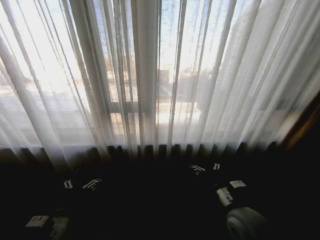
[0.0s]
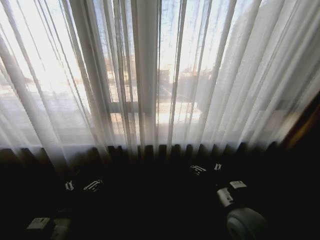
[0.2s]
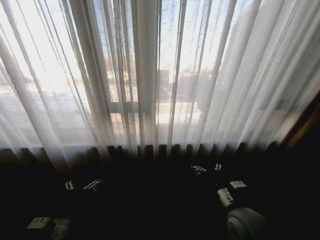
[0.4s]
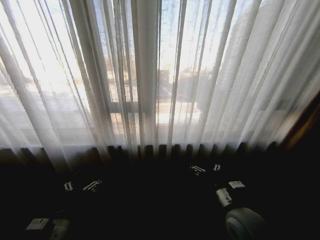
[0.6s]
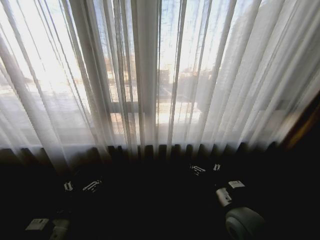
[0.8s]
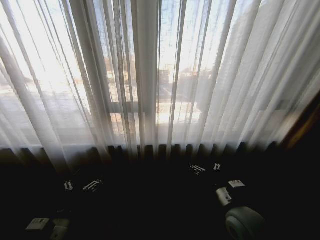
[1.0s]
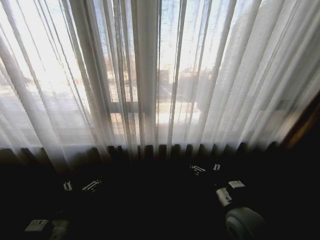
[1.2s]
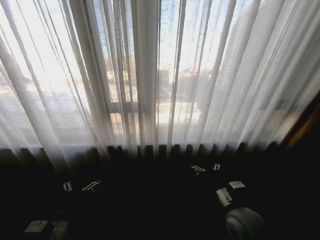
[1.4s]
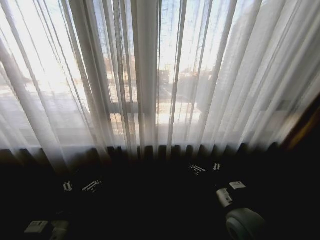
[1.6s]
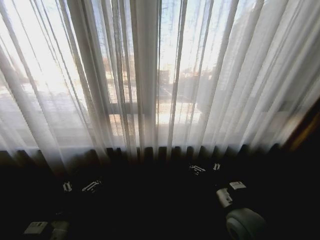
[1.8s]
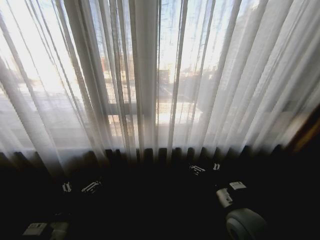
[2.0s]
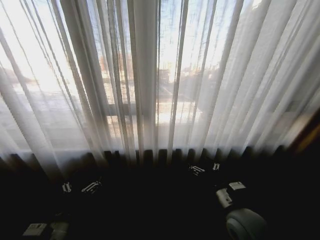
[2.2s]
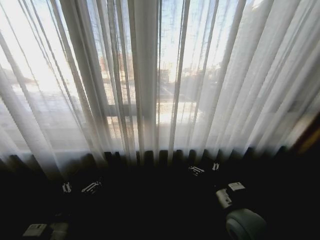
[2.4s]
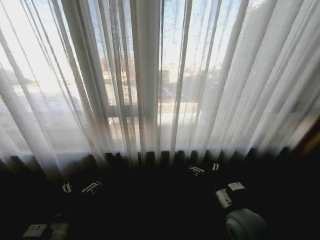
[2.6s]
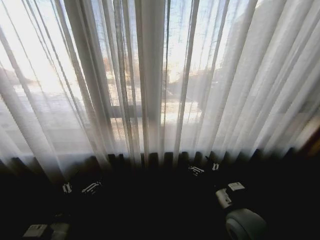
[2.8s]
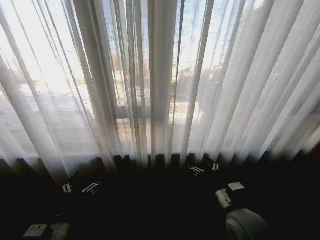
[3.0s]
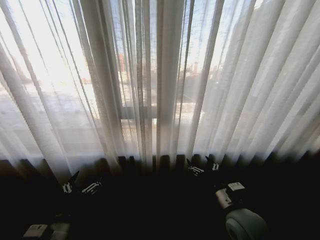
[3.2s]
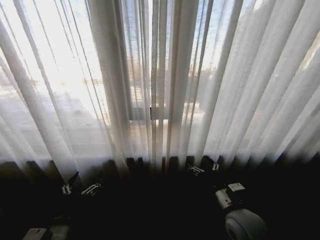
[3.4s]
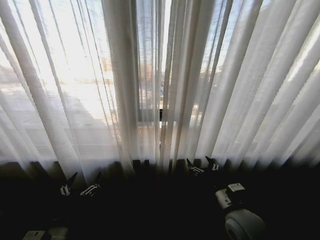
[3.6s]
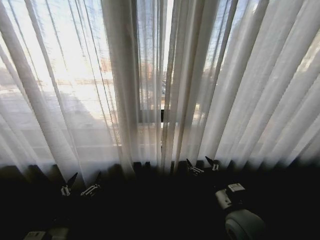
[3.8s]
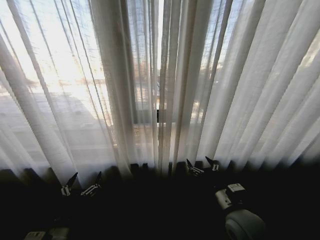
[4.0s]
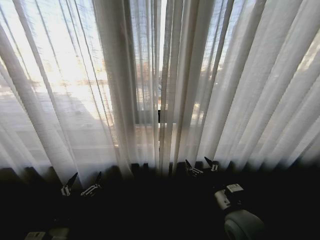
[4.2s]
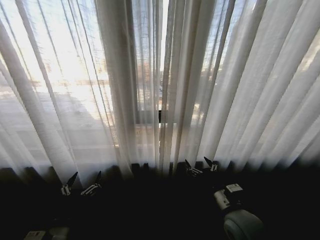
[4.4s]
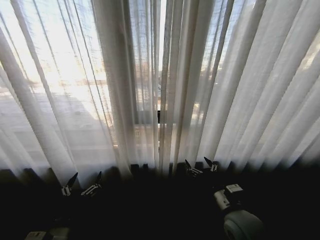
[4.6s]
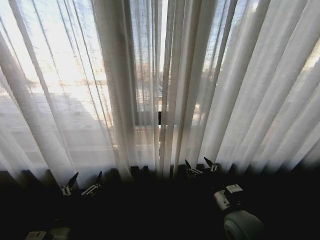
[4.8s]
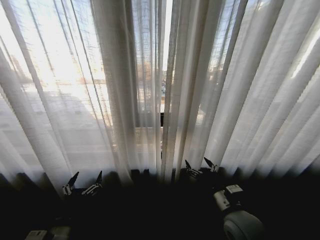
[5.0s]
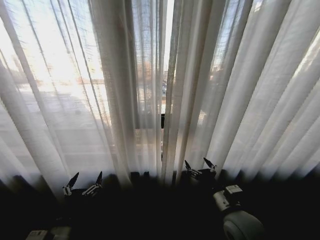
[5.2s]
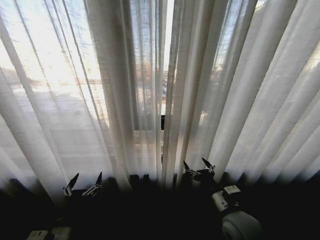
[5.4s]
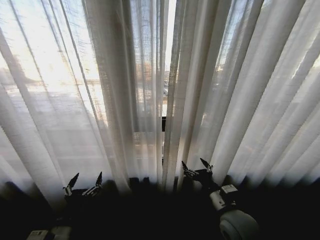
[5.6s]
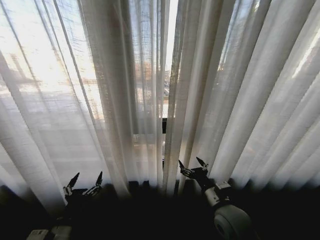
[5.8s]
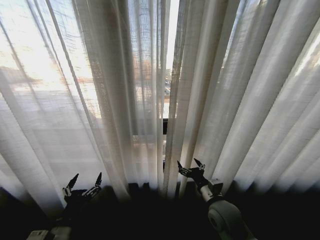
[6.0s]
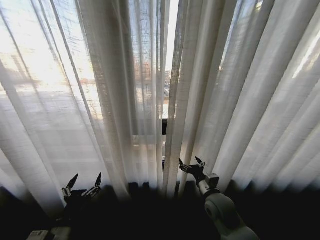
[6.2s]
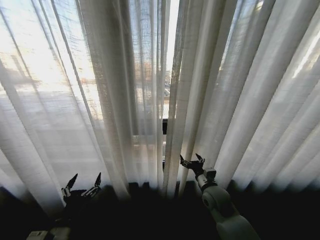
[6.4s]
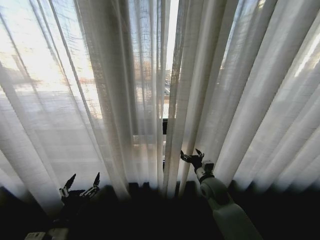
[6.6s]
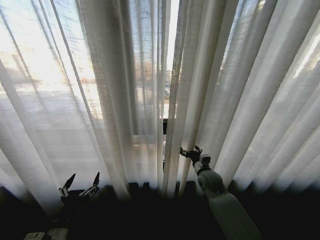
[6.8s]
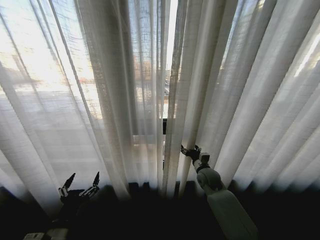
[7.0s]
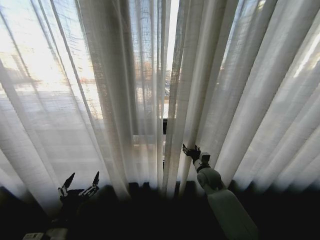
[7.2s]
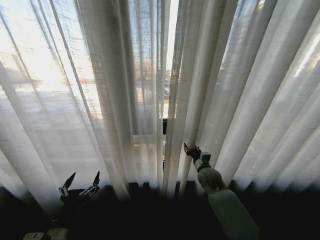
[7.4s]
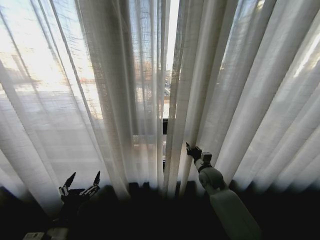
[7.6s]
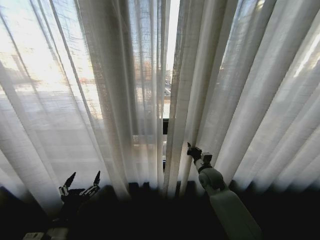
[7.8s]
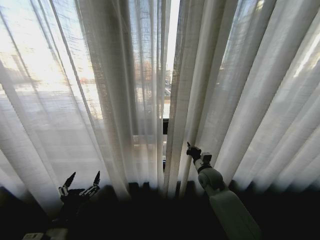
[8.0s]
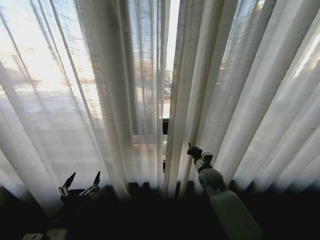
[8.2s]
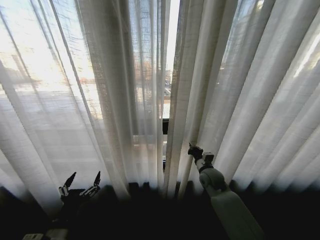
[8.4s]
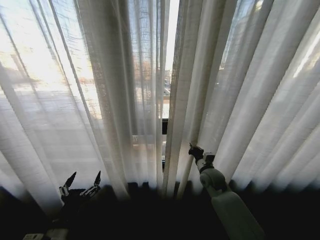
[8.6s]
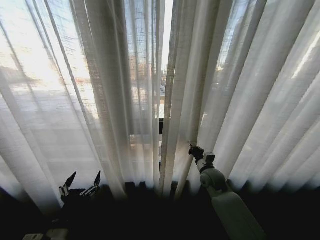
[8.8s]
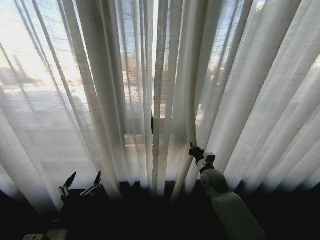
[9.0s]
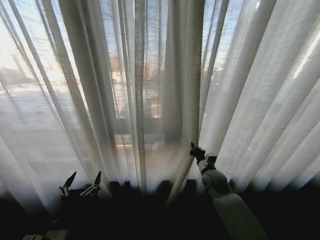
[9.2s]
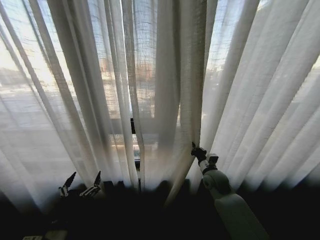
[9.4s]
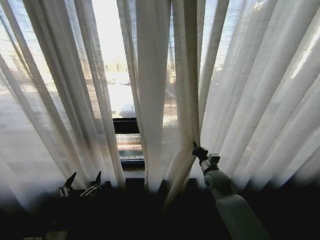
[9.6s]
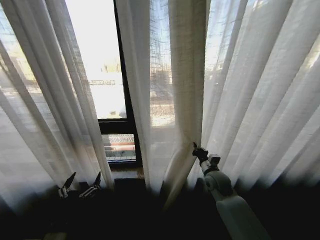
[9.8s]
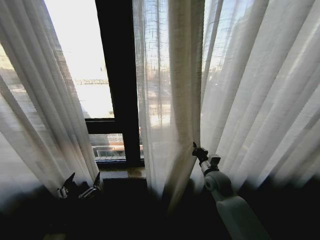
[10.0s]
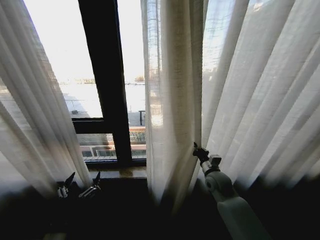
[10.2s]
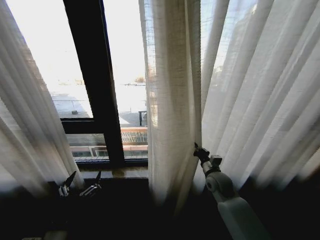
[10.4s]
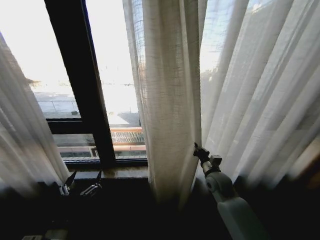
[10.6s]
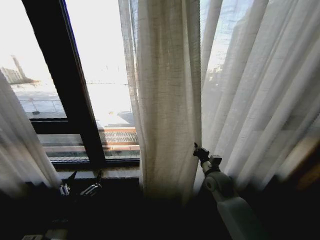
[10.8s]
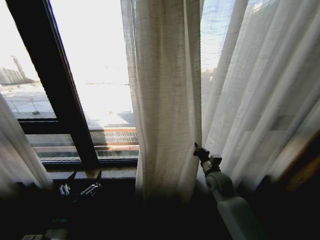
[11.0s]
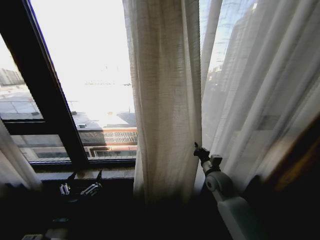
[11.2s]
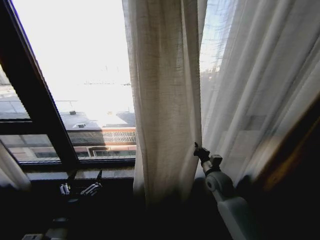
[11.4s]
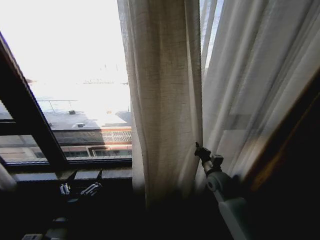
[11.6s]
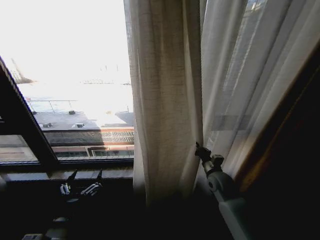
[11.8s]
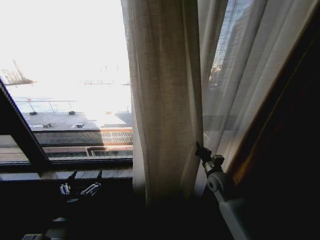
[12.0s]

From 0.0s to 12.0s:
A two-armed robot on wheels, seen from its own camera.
Task of the whole recording: Open the curtains by pulling them apart, changing their state from closed to fully open.
From 4.4s to 6.0s: The right gripper changes place by about 5 cm.
From 6.0s to 7.6s: The right gripper travels forward by some 15 cm, and closes its fingers.

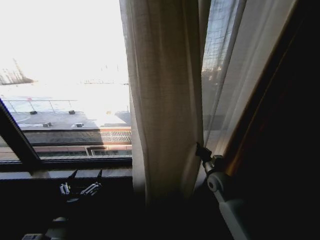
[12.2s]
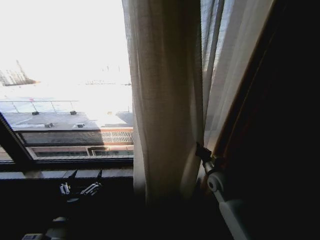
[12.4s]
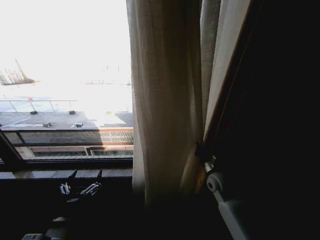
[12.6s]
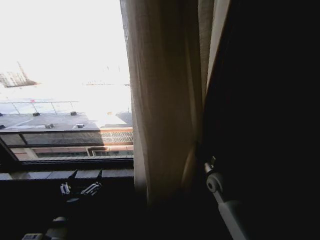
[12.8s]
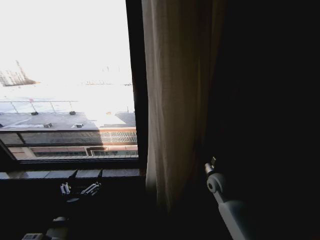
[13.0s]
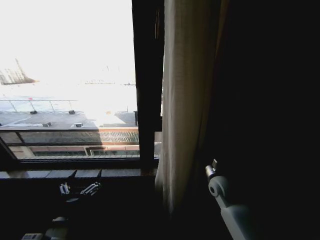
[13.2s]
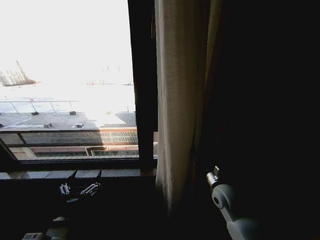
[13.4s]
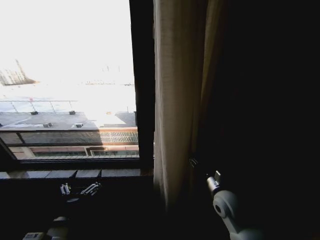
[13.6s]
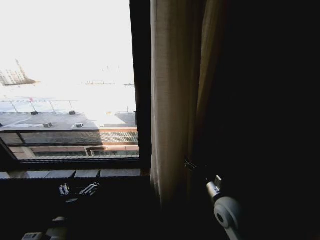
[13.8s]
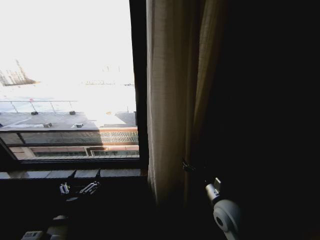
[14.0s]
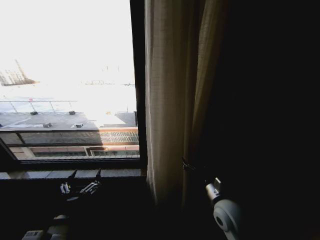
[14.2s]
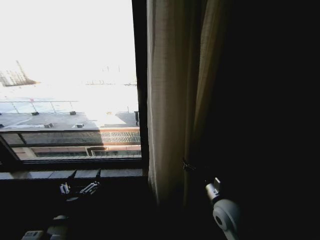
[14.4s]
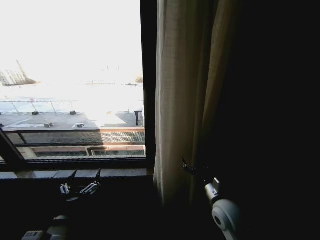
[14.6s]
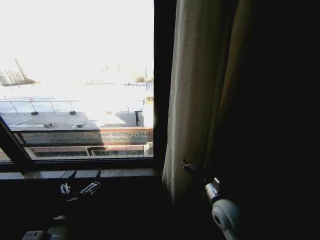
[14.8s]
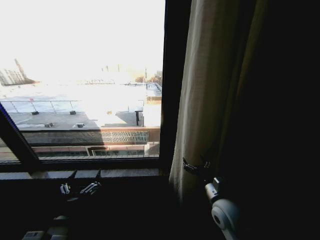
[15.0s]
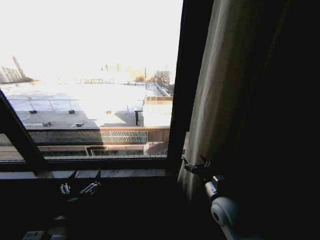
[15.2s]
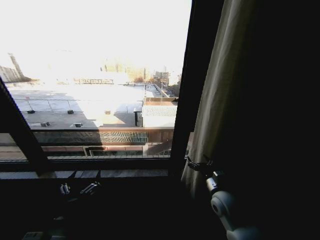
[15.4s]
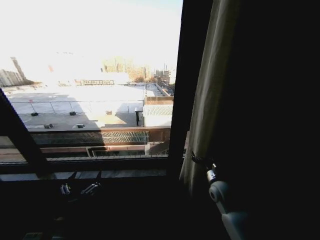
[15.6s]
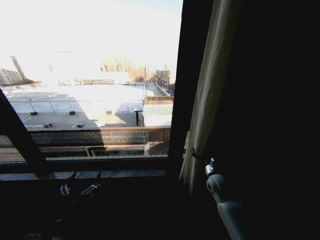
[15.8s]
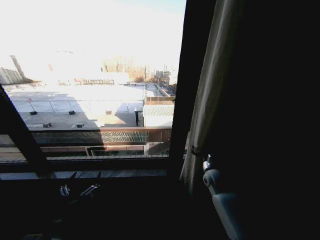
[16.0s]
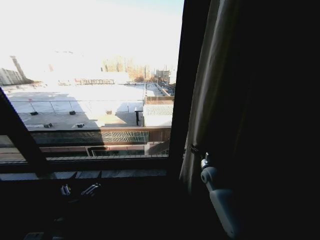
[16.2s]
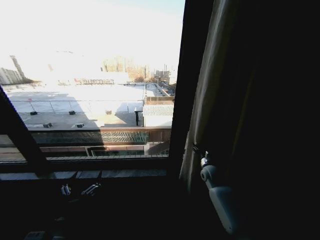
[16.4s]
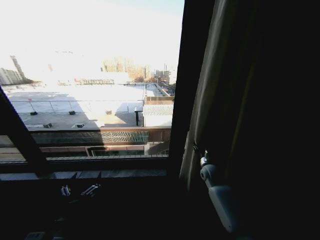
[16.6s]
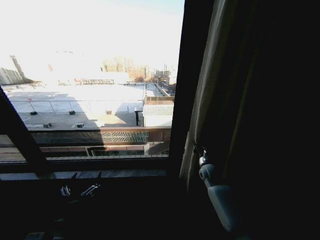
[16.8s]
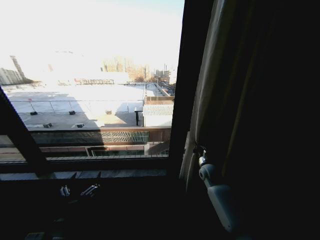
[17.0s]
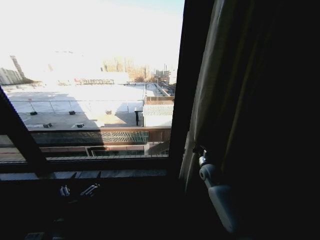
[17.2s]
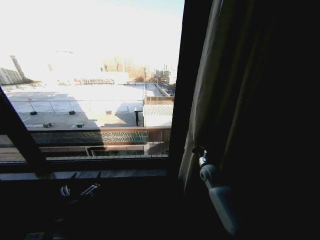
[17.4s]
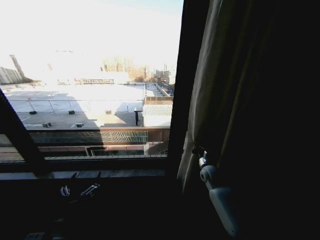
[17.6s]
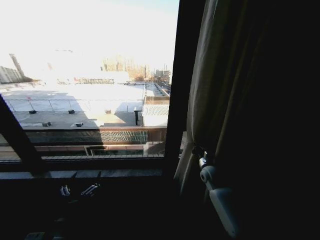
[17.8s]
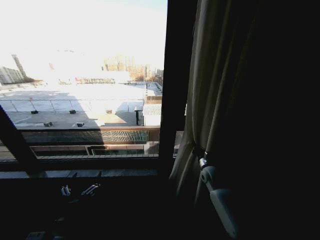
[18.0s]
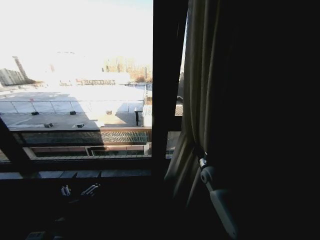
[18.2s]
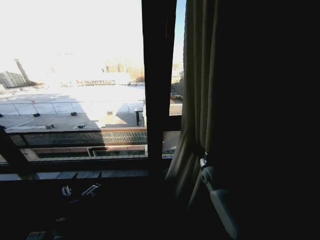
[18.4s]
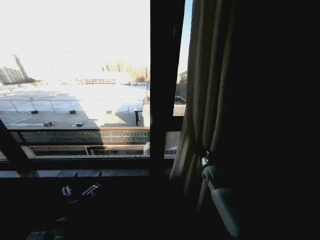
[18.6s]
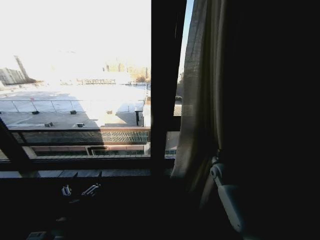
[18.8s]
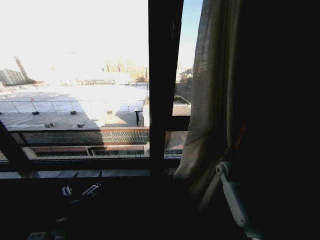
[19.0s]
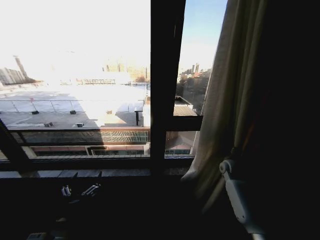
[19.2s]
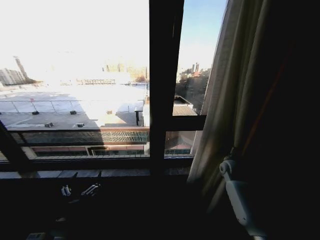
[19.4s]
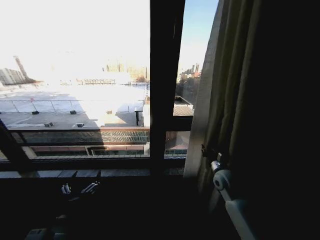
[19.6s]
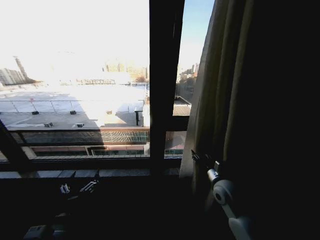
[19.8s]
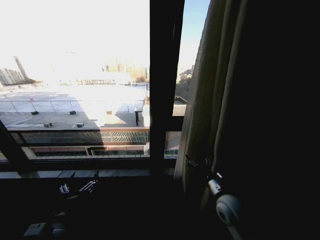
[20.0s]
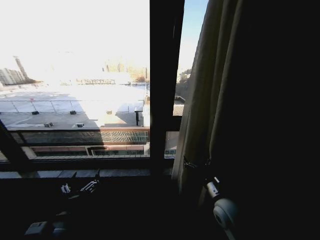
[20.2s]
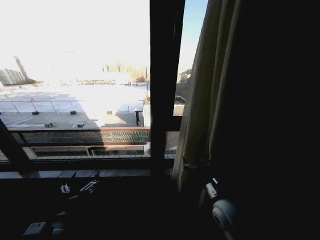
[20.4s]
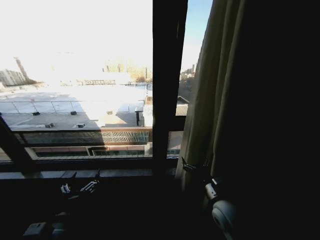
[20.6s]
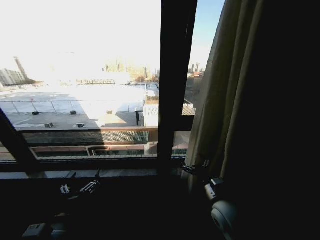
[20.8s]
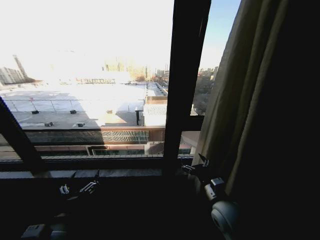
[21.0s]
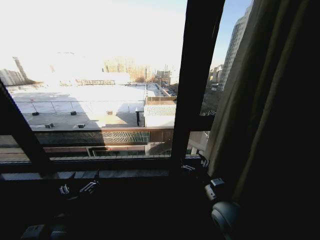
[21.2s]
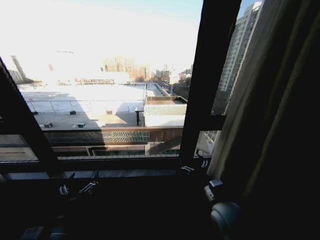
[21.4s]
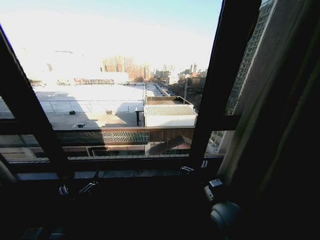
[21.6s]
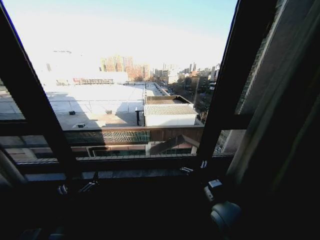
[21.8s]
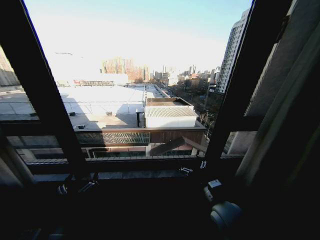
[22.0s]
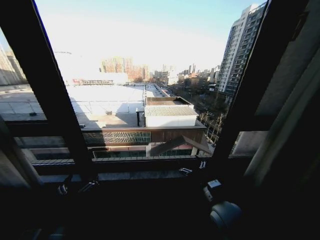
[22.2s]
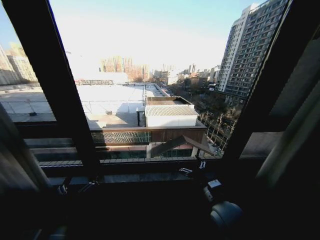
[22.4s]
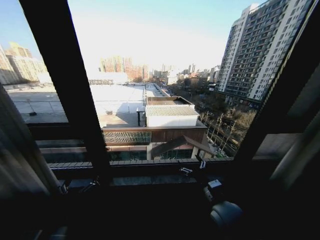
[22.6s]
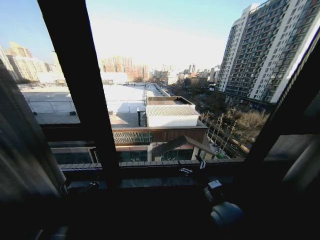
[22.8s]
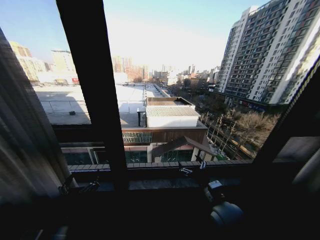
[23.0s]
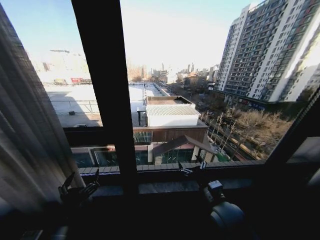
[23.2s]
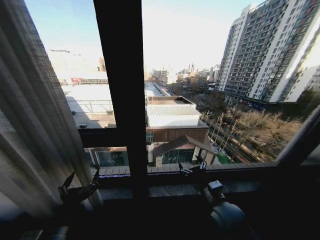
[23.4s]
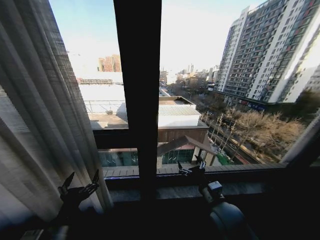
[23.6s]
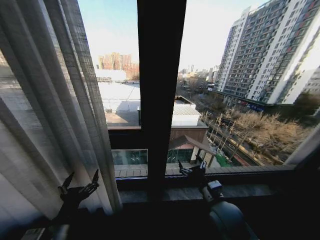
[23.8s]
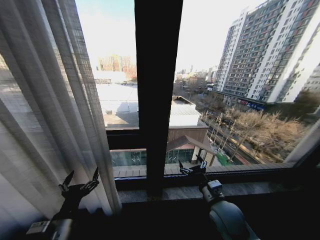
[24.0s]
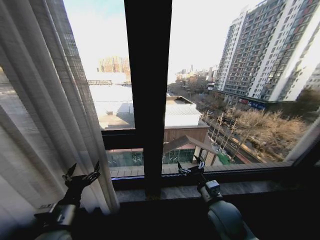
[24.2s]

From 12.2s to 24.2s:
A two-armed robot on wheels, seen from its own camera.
Task of the whole recording: Open the curtains by pulling them apart, changing their state from closed to fully open.
From 12.2s to 13.8s: The right gripper moves backward, about 10 cm, and opens.
From 15.2s to 16.6s: The right gripper shifts about 20 cm forward, and closes.
From 16.6s to 18.2s: The right gripper closes.
From 18.2s to 19.8s: The right gripper is displaced backward and upward by approximately 10 cm, and opens up.
From 19.8s to 21.2s: The right gripper travels backward by about 5 cm, and opens up.
